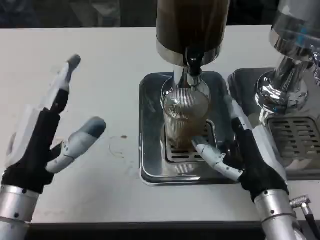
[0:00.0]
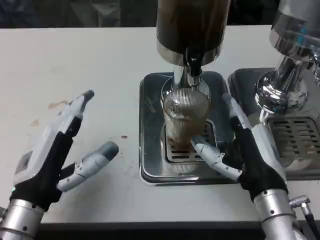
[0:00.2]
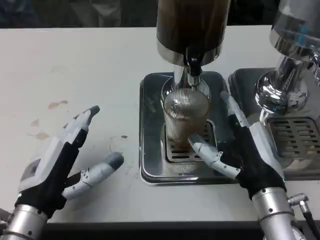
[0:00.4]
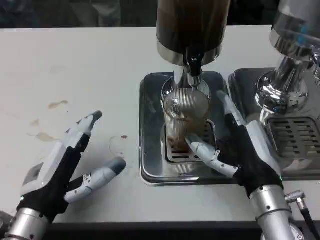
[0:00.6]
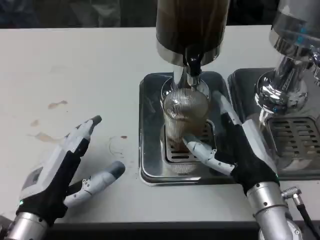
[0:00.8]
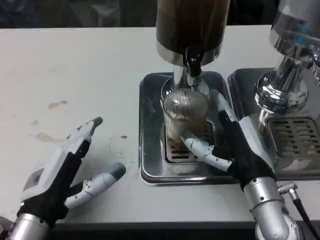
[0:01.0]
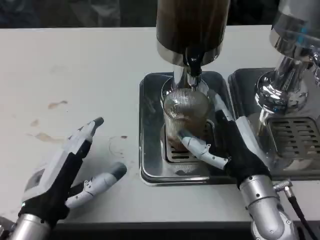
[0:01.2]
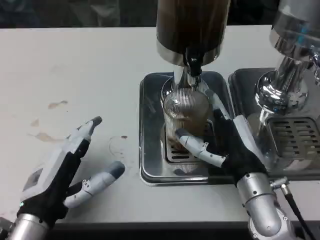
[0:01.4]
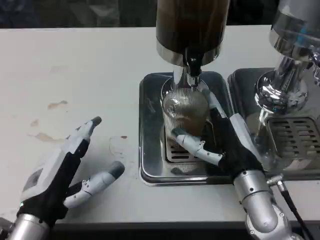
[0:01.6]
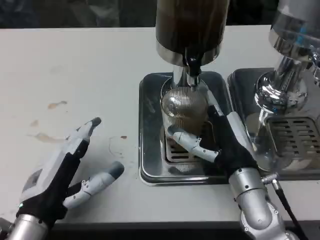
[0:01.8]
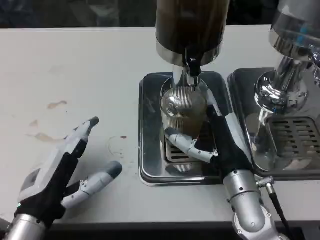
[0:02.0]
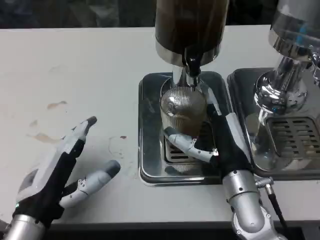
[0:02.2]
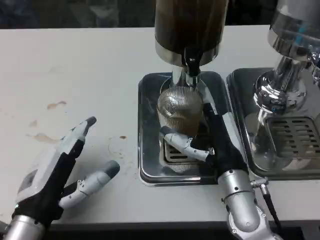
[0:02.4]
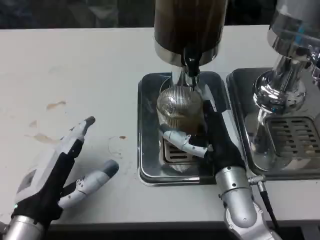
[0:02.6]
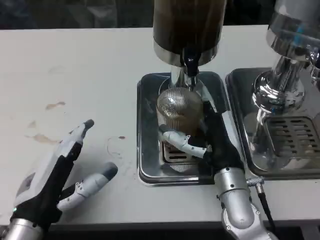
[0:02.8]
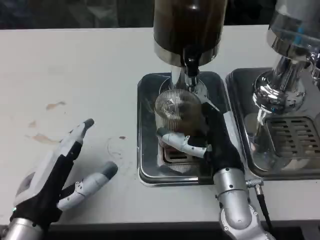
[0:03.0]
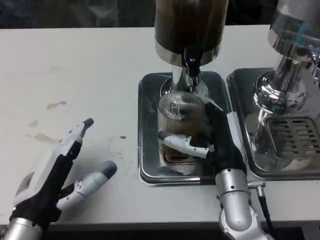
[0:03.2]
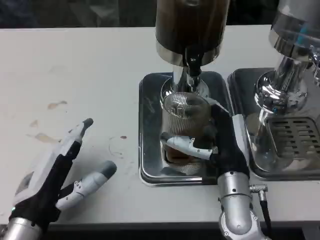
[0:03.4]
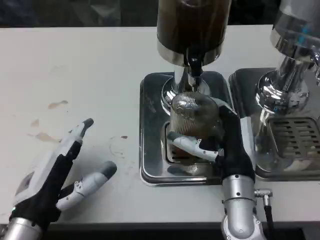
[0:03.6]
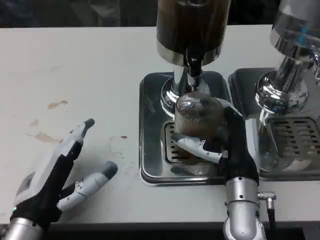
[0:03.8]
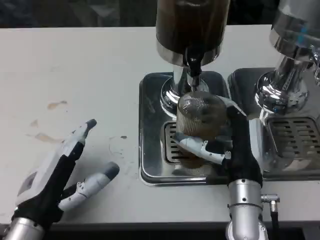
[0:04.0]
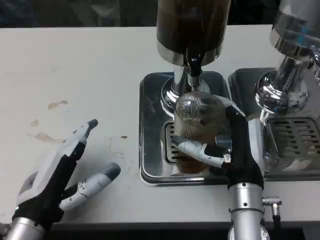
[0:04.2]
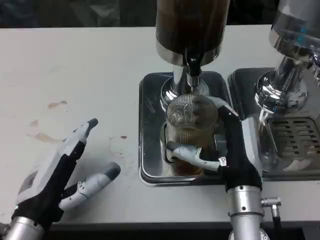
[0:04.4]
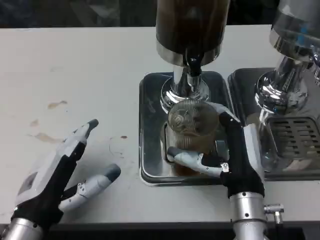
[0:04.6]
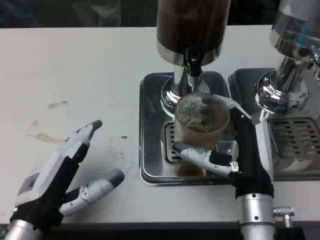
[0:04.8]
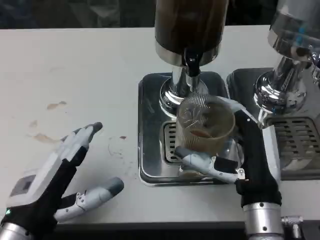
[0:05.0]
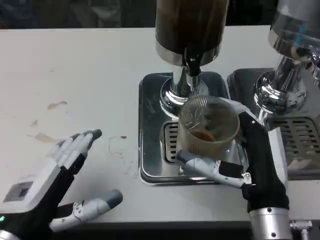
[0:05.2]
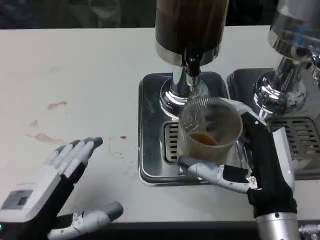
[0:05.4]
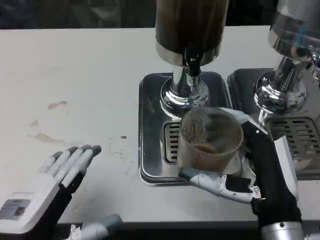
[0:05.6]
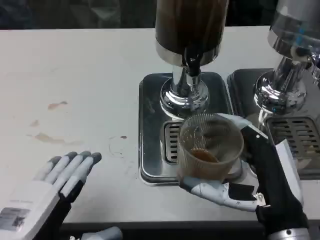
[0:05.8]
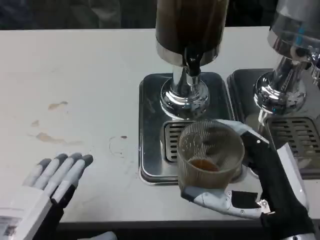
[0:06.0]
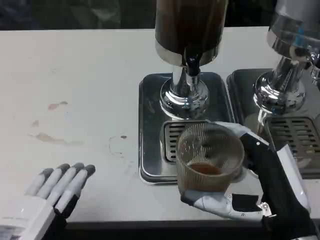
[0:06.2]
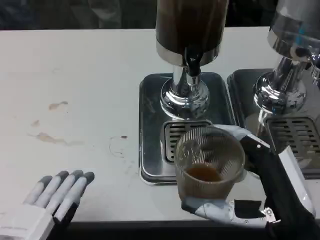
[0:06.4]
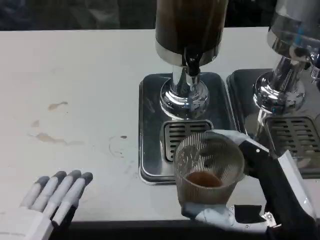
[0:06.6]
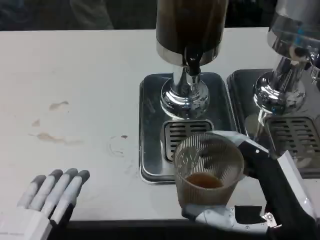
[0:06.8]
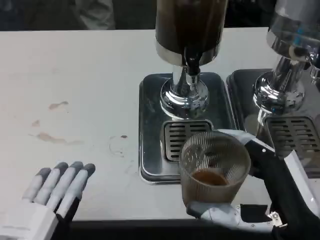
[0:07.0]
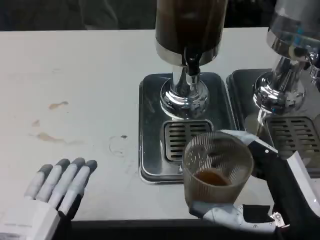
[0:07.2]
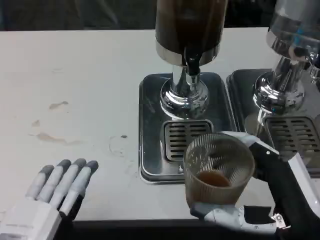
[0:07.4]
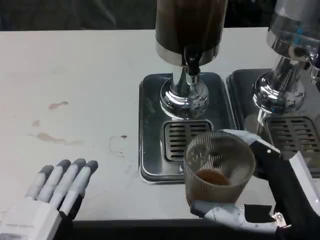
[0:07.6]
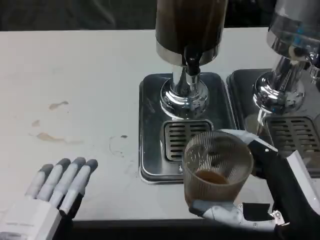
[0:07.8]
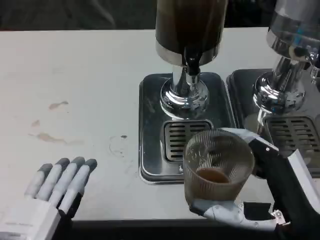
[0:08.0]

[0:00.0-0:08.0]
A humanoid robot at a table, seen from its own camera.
Task of the whole recording: Grasp the cup under the faucet to collect the drink, then remove the cup.
0:01.6 to 0:03.2: The hands stay close to where they were, moving slightly.
0:03.2 to 0:04.8: The right hand shifts some 5 cm backward.
0:04.8 to 0:06.4: Both hands travel together backward, some 10 cm.
0:06.4 to 0:08.0: The hands move only a little.
